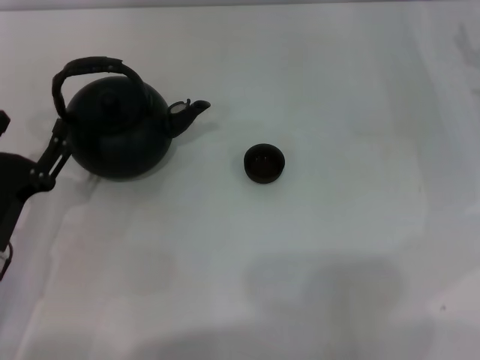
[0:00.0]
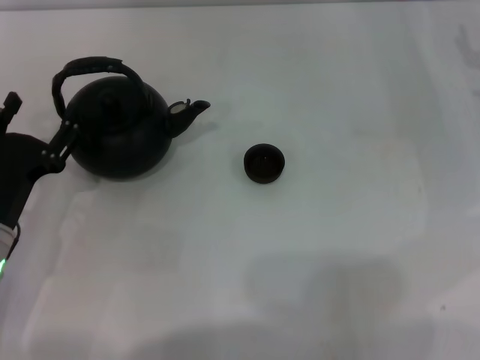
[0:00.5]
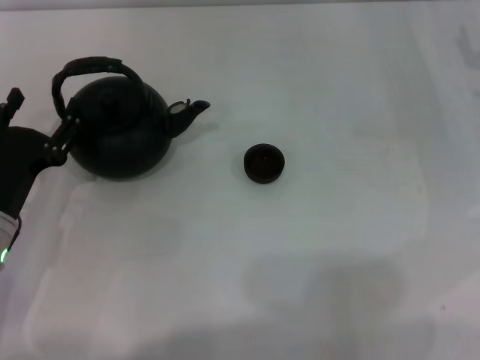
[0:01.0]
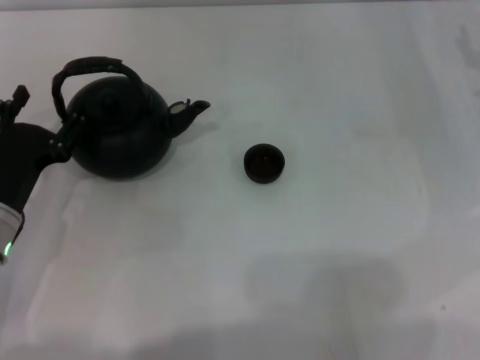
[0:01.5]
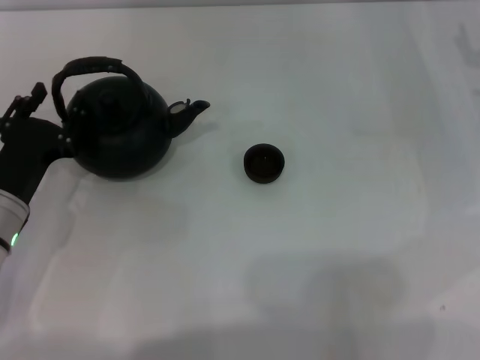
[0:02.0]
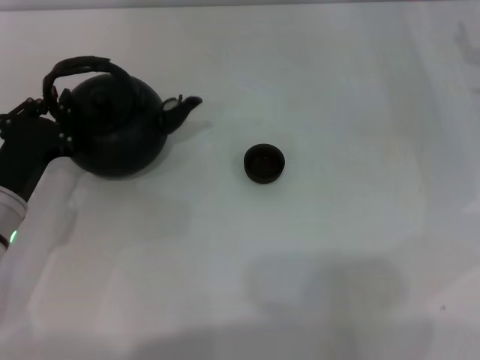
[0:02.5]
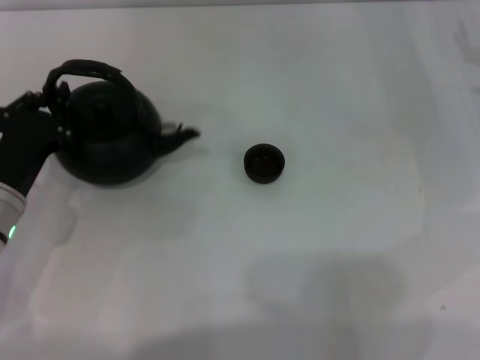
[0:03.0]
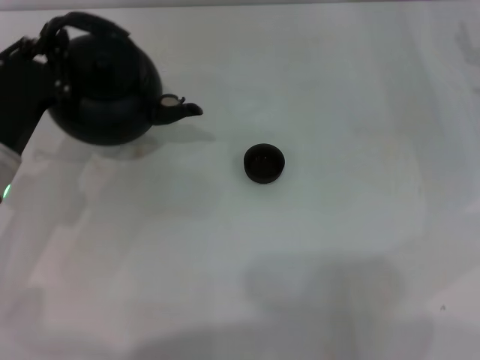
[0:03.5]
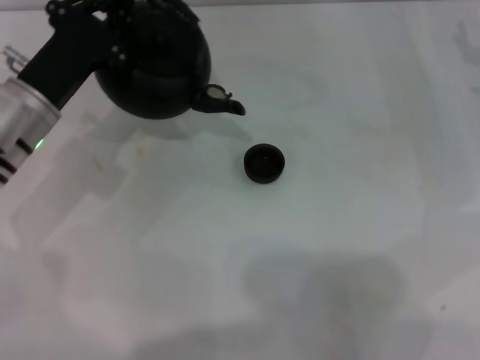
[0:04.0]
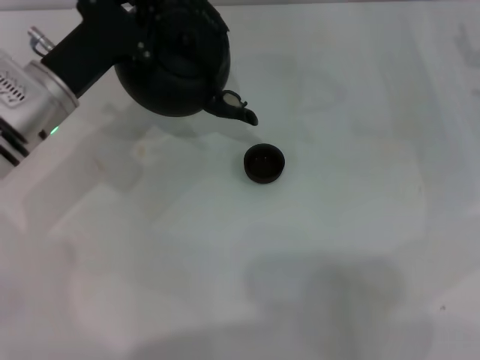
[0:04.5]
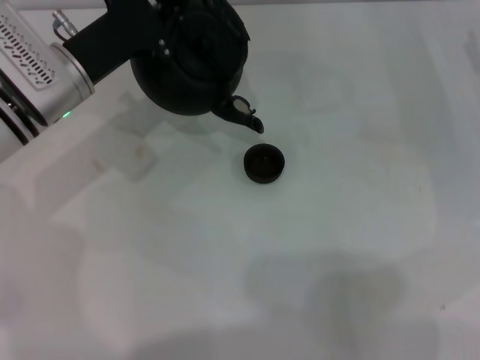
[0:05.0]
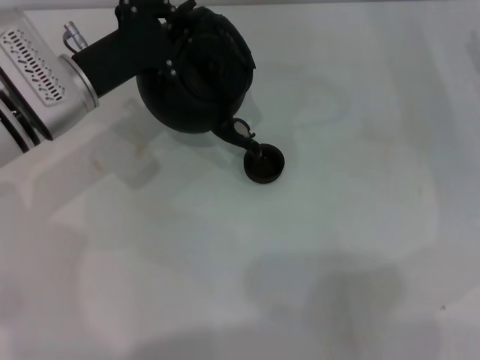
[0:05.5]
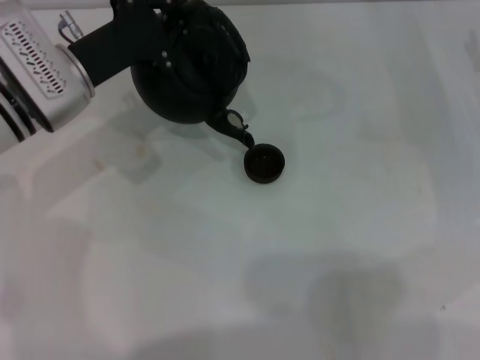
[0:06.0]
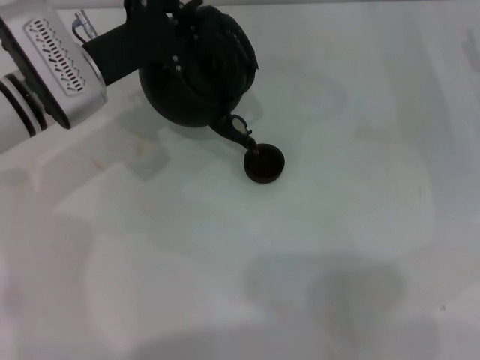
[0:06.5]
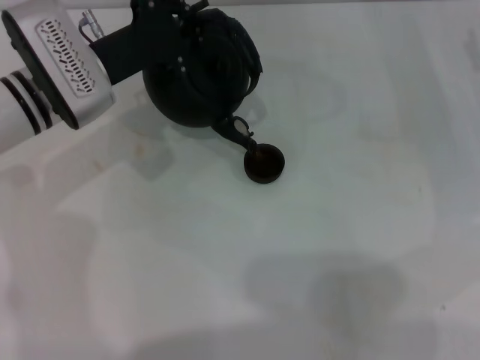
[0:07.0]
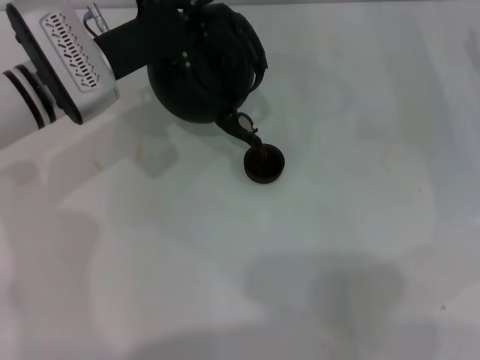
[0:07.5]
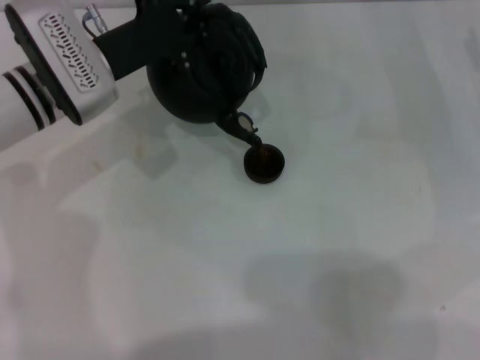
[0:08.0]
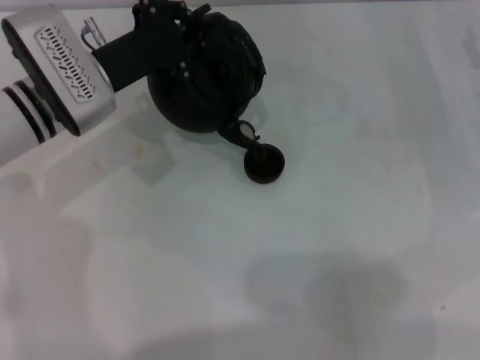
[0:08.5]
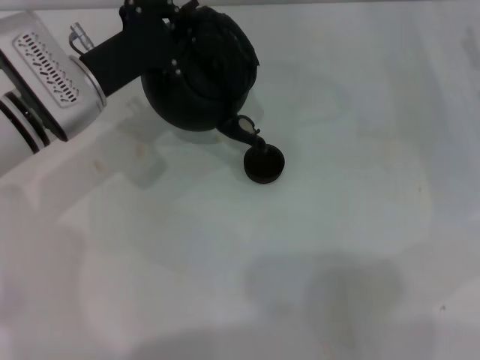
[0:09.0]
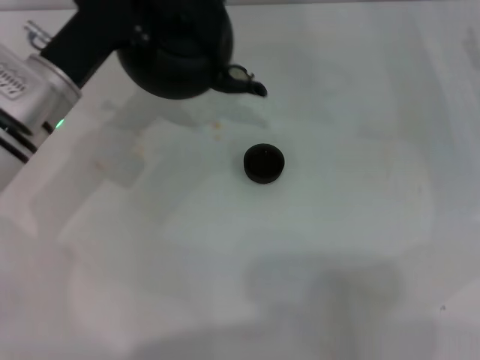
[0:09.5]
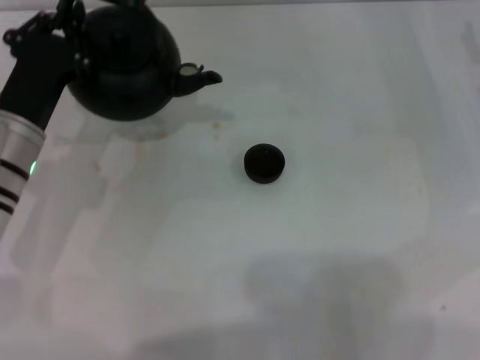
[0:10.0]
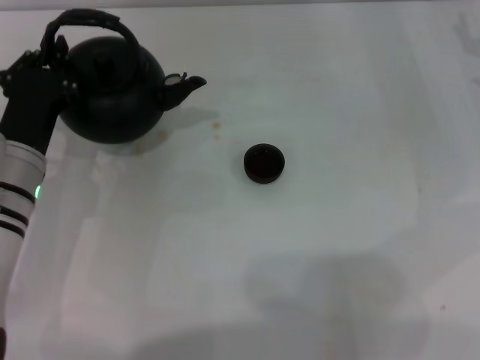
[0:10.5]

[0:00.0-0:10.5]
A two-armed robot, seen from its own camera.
Task of the whole recording: Grasp the handle of the teapot with one hand and pour tea into the teacup.
Step, 0:00.0 to 0:03.5: Pick up the teapot with the left gripper.
Step, 0:04.0 to 0:09.5: Pour tea into the teacup with the left gripper.
0:00.0 to 0:02.0: The left gripper moves forward, about 5 cm.
0:02.0 to 0:04.0: The left gripper shifts roughly 10 cm forward and upward, and closes its fingers.
0:04.0 to 0:06.5: The left gripper moves some 5 cm.
0:06.5 to 0:08.5: The two grippers keep their place.
0:08.5 to 0:10.5: The left gripper moves backward and downward, approximately 10 cm.

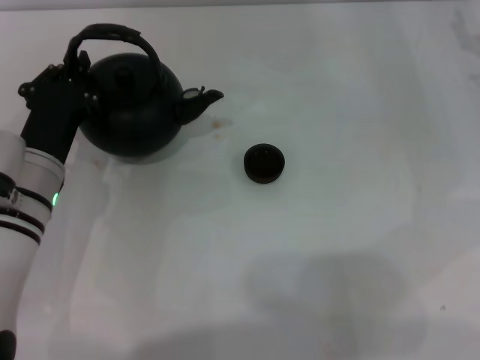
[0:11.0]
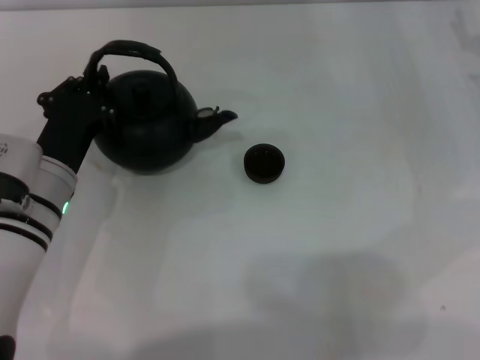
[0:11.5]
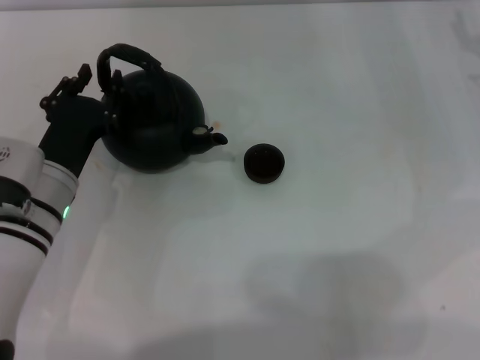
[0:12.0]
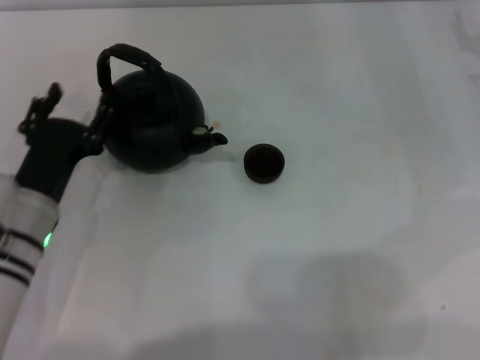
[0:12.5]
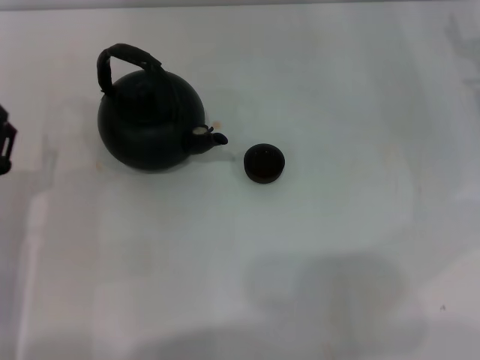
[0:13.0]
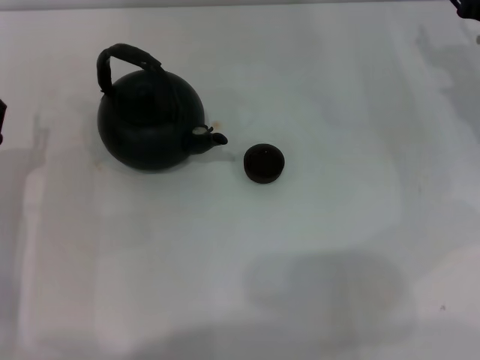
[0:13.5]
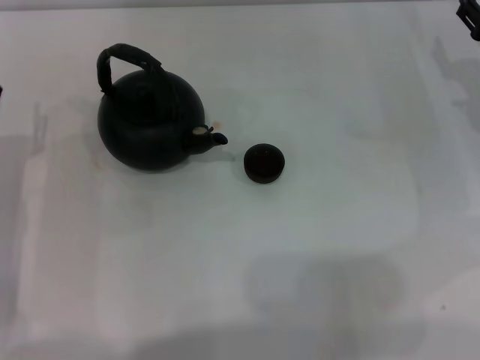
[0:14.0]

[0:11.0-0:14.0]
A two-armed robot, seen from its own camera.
Task of the whole recording: Grasp the handle of the teapot with one hand and pour tea into the teacup.
Step, 0:11.0 to 0:12.5: Put down the teapot with the left gripper.
0:11.0 to 0:12.5: The left gripper opens its fingers.
0:12.5 to 0:14.0: The left gripper moves to the left, some 5 cm.
